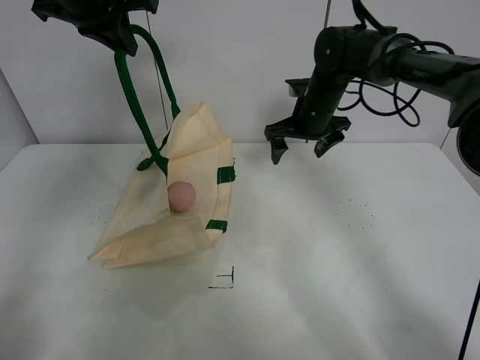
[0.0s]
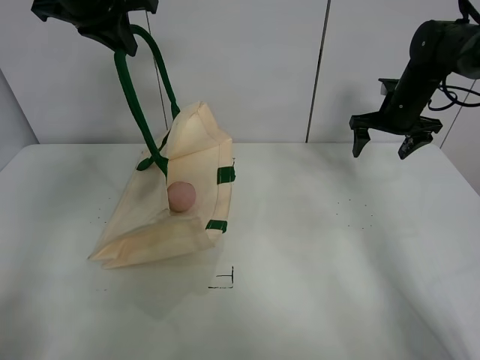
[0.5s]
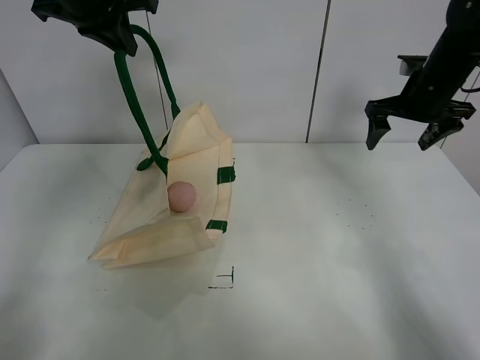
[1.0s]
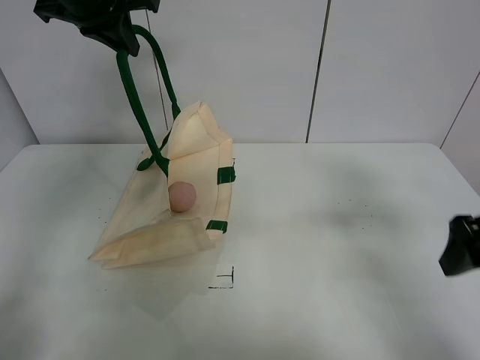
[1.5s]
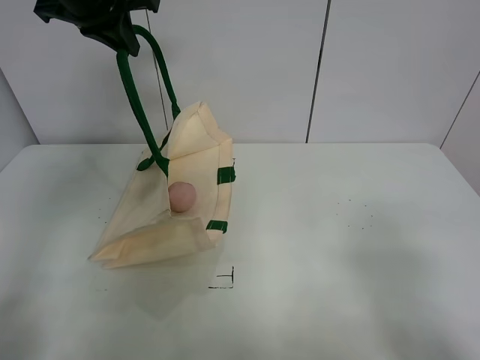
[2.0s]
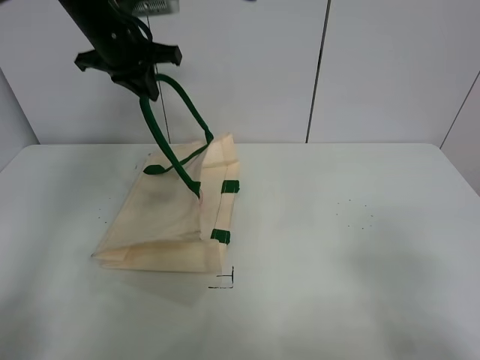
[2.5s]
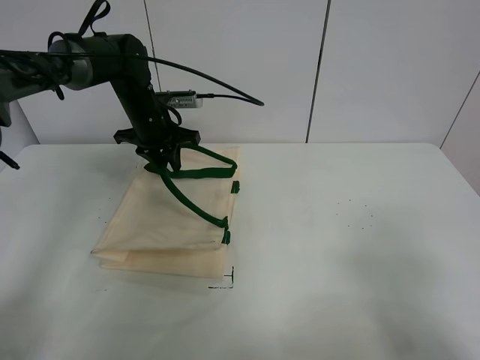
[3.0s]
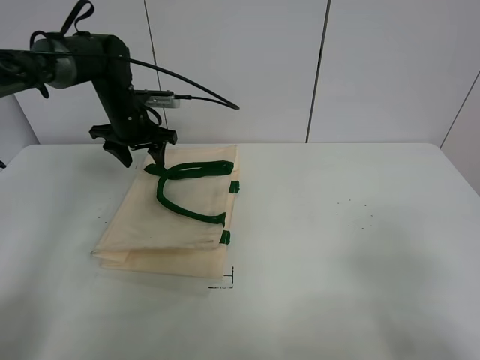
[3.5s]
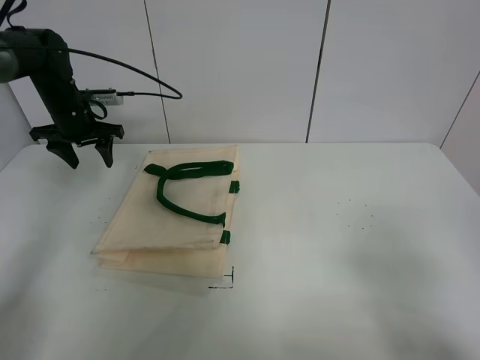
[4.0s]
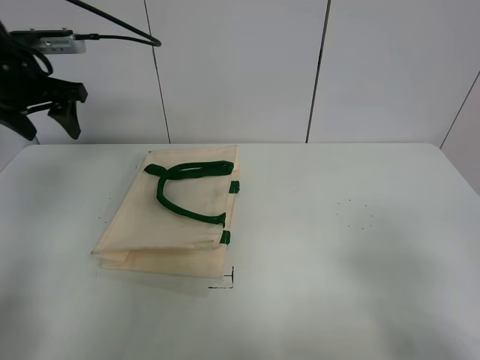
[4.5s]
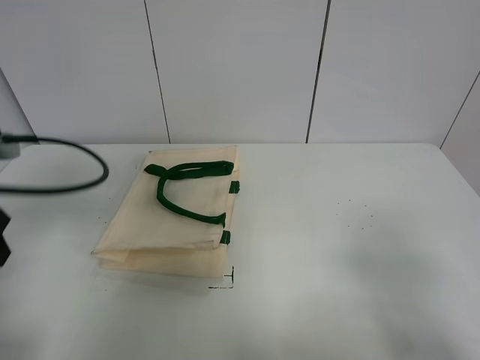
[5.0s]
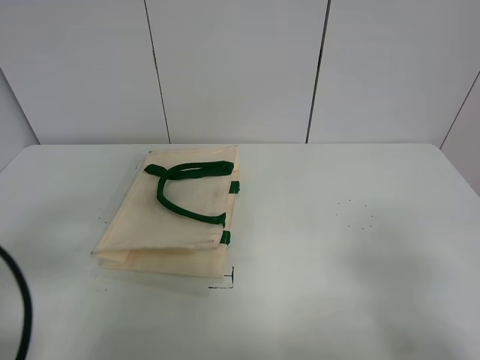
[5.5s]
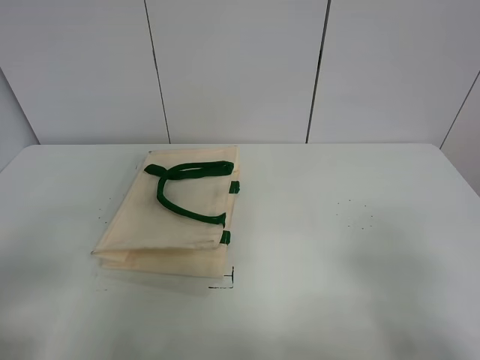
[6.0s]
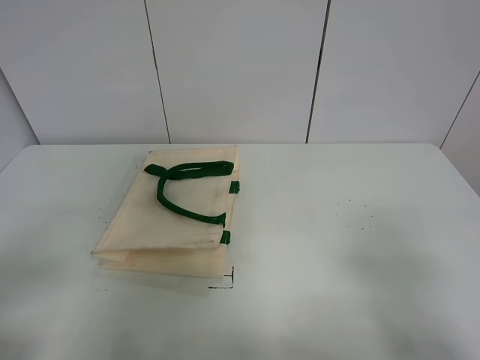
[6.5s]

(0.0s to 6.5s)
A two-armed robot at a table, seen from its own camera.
Task of the whole recording: open the white linen bag and put the peach in the bag.
Step, 0.0s - 3.0s: Put down the handbag with left gripper.
0.0s - 2.0s: The right gripper shifts about 40 cm backward.
2.0s - 4.5s: The left gripper heads to the left and downward, covering some 15 cm, and opens up.
4.5s - 6.5s: The left gripper travels backward by some 35 cm.
